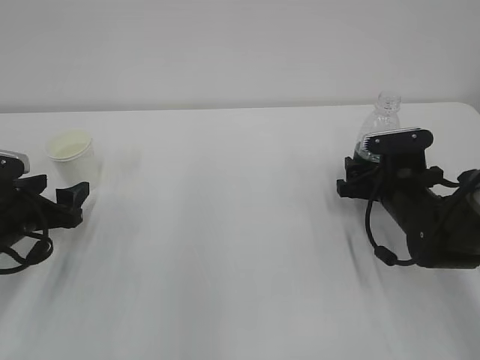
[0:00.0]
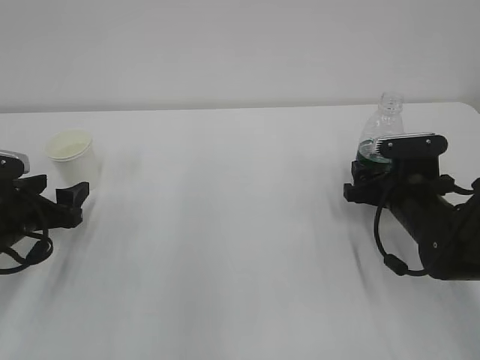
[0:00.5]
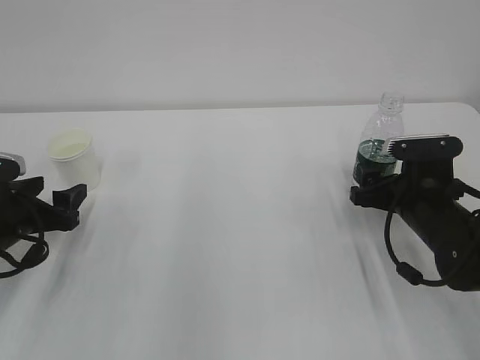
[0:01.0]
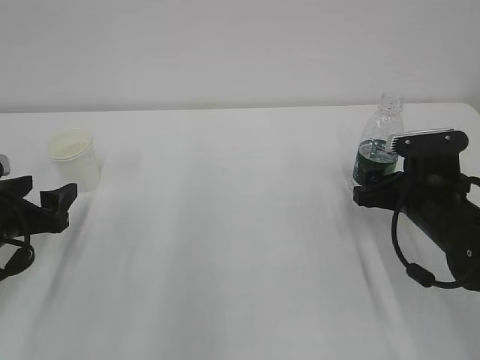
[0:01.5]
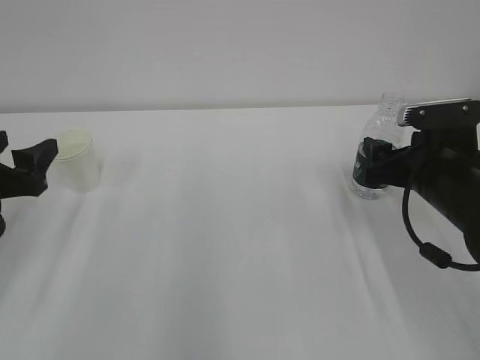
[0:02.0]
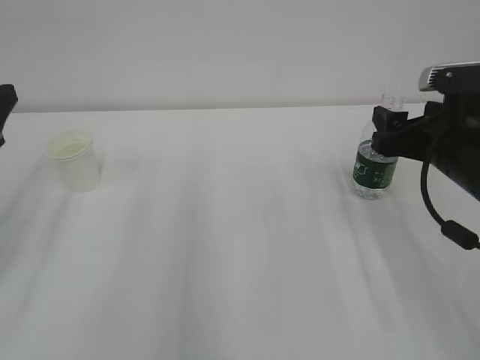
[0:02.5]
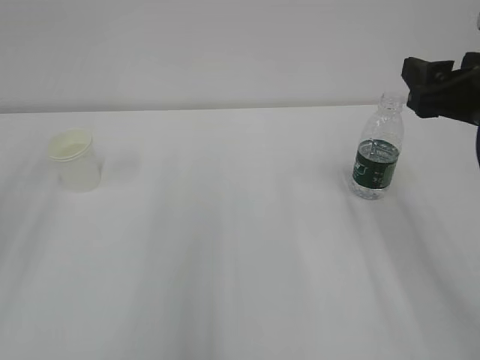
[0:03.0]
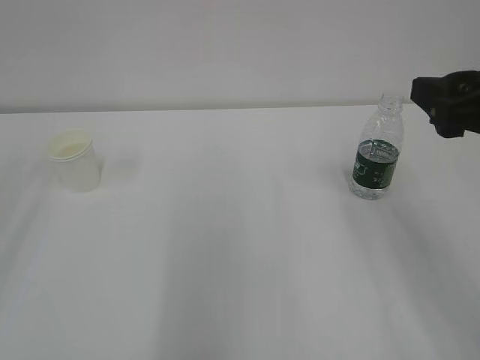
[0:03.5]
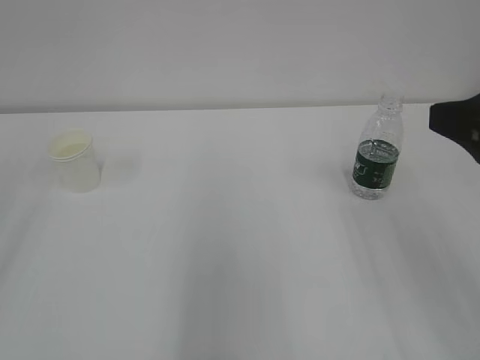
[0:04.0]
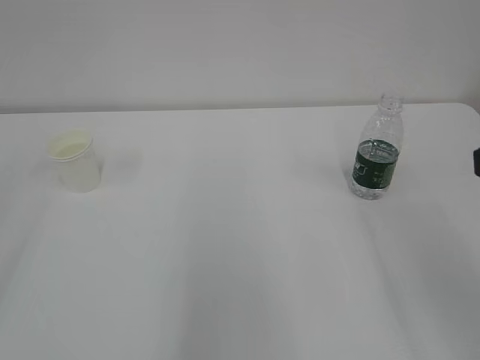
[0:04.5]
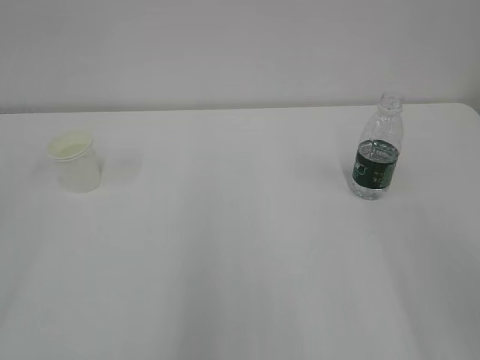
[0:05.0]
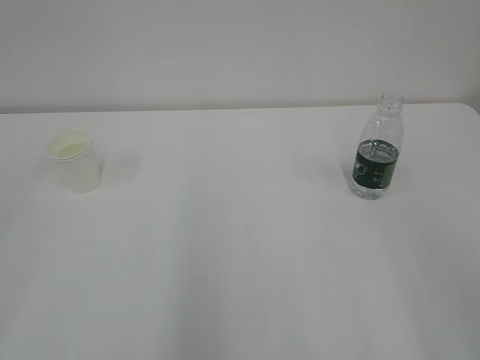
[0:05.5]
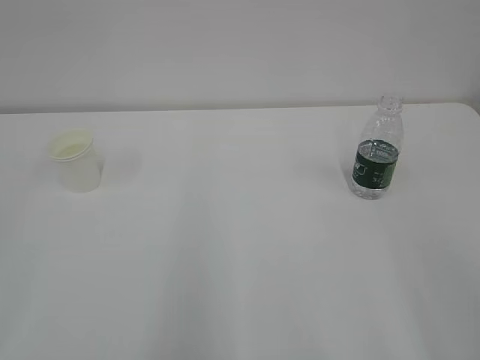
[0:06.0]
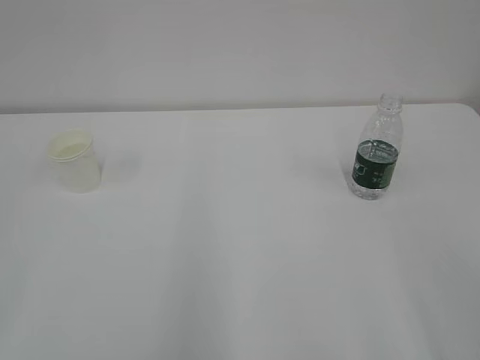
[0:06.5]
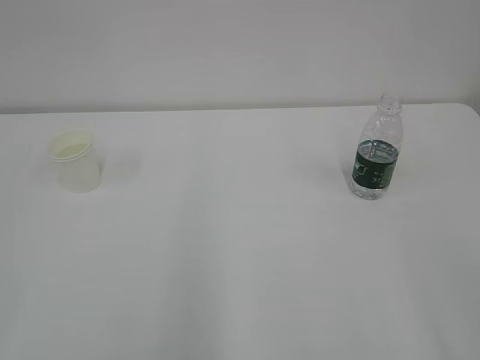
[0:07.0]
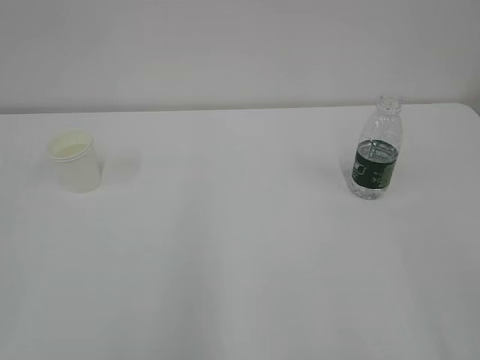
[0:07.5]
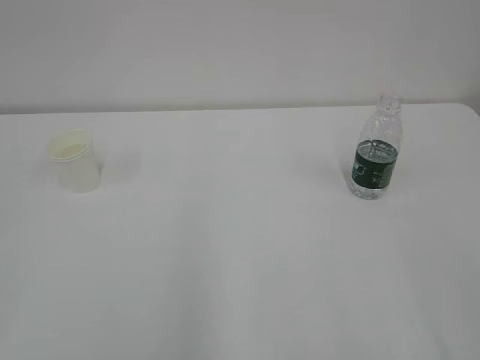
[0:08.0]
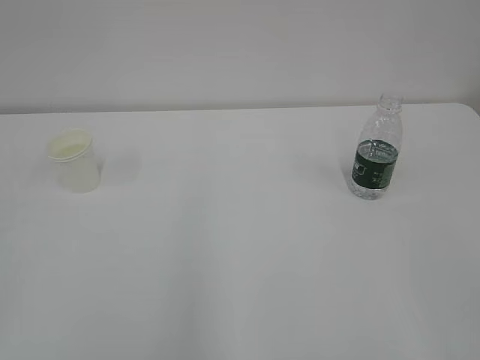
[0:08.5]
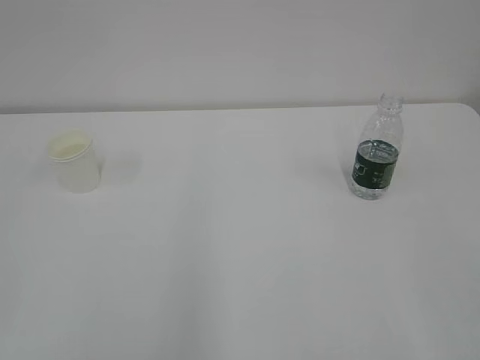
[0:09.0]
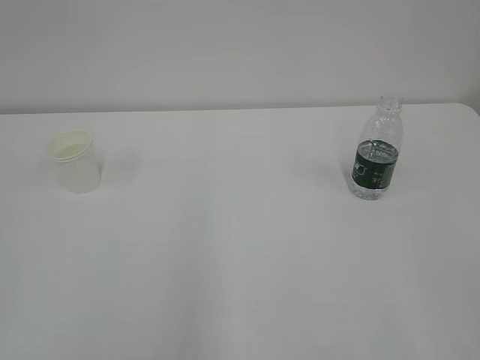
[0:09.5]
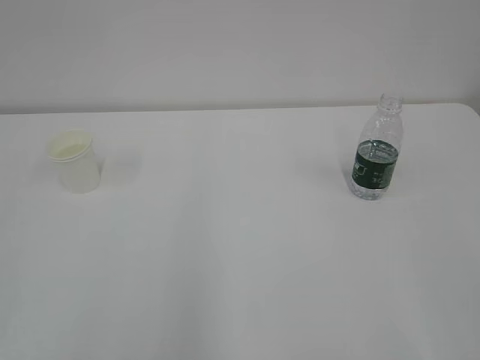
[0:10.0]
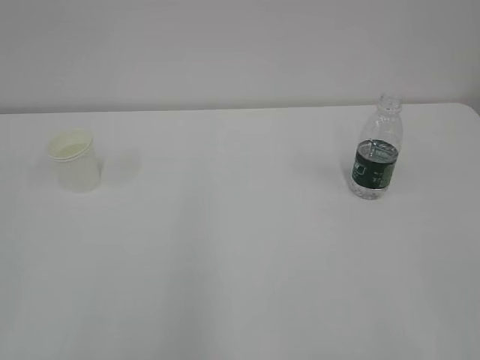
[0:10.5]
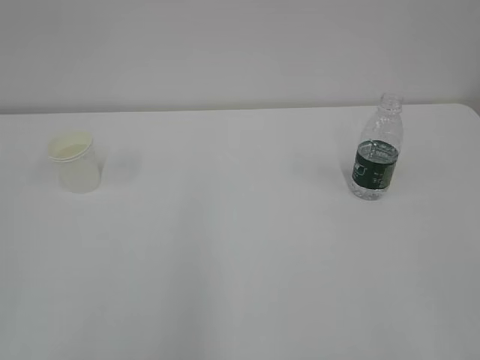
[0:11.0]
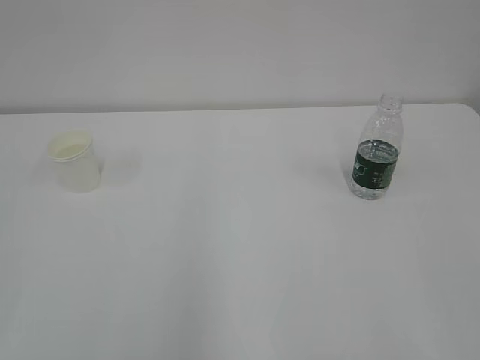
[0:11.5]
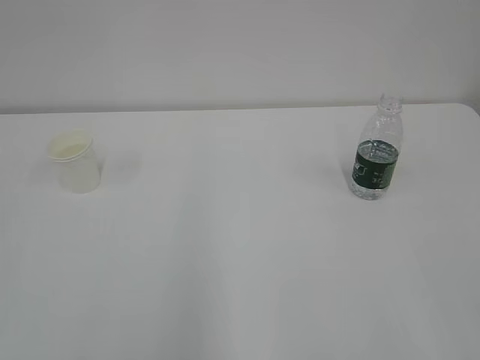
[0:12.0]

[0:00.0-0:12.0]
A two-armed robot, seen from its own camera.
0:00.0 to 0:02.0: The right gripper heads upward and backward, covering approximately 10 cm. Meanwhile the left gripper moves upward, about 10 cm.
0:02.0 to 0:04.0: Both grippers move upward and backward, some 25 cm.
0:04.0 to 0:06.0: The right gripper is displaced backward by approximately 10 cm.
